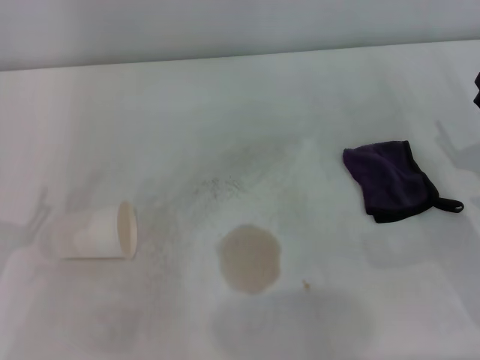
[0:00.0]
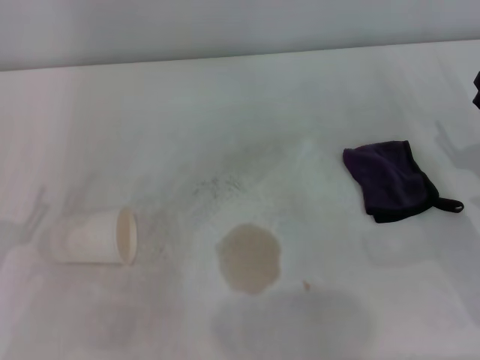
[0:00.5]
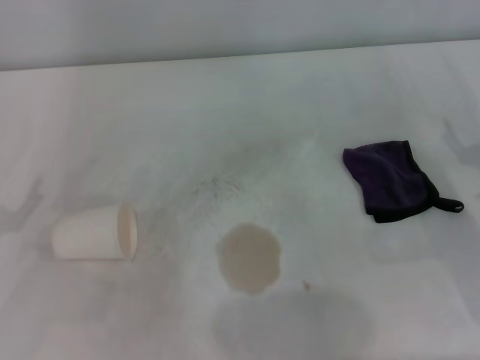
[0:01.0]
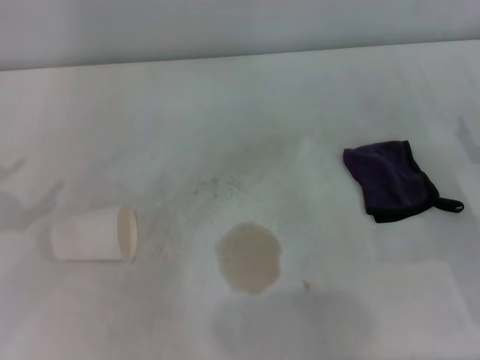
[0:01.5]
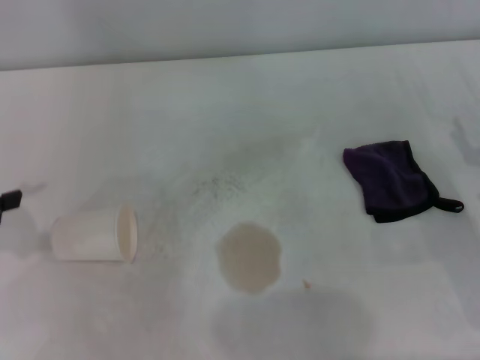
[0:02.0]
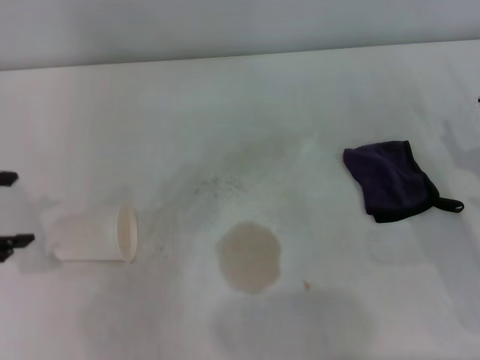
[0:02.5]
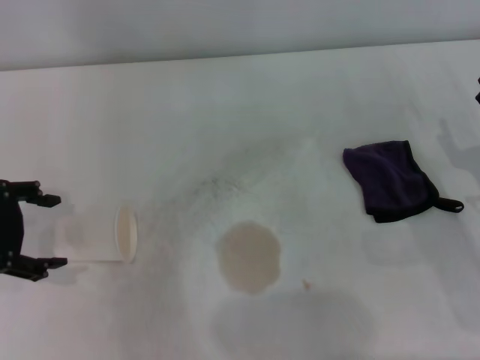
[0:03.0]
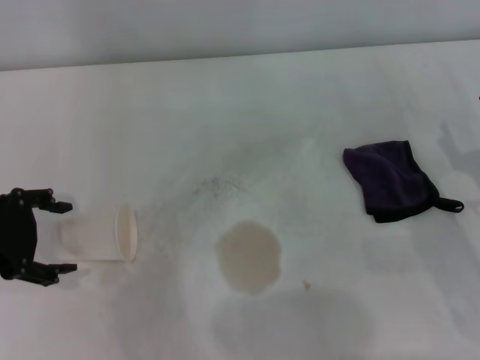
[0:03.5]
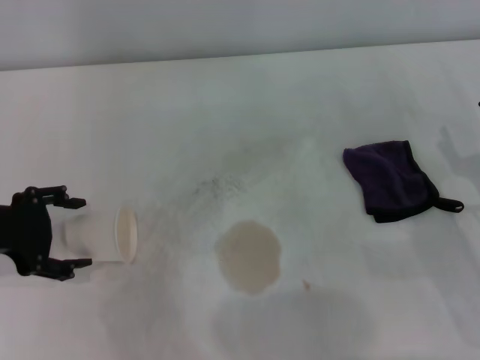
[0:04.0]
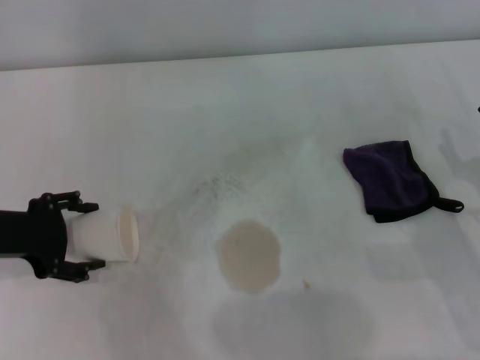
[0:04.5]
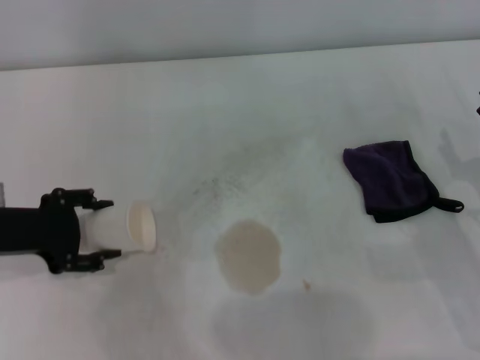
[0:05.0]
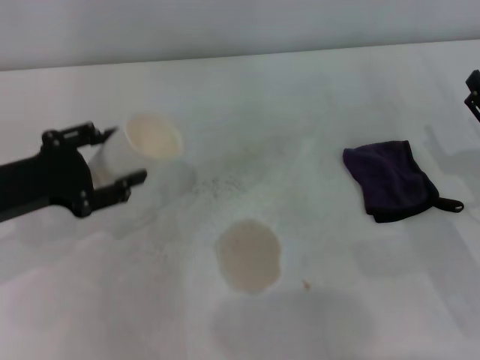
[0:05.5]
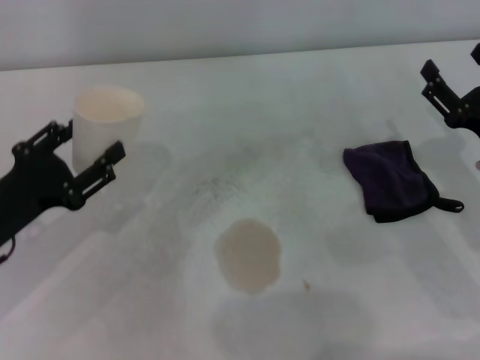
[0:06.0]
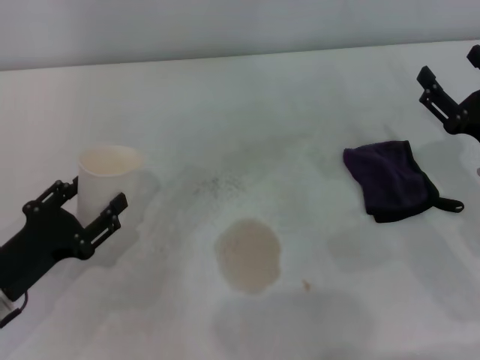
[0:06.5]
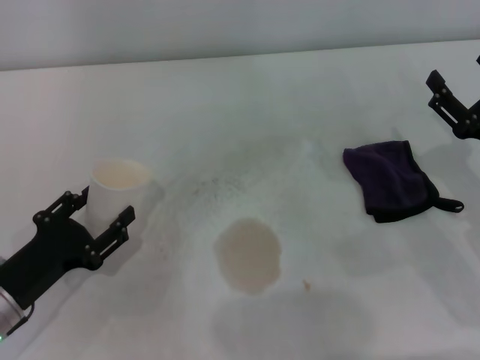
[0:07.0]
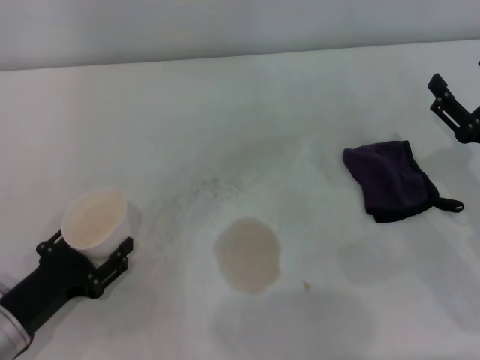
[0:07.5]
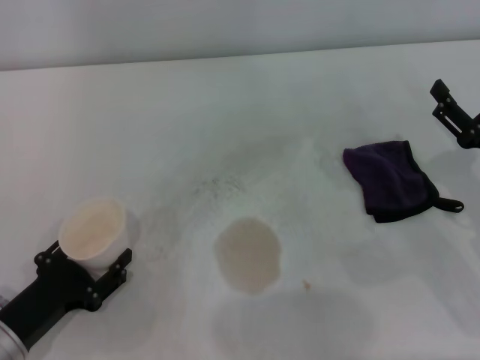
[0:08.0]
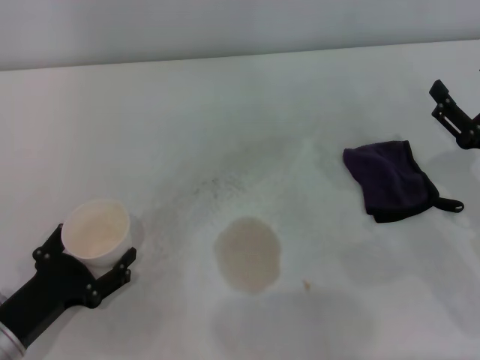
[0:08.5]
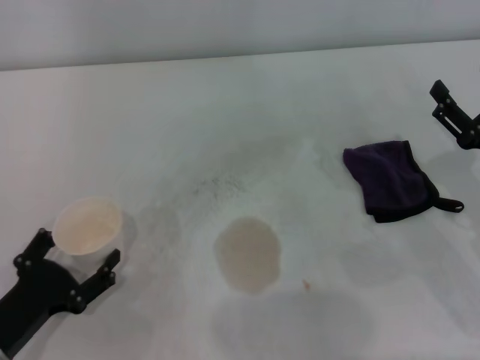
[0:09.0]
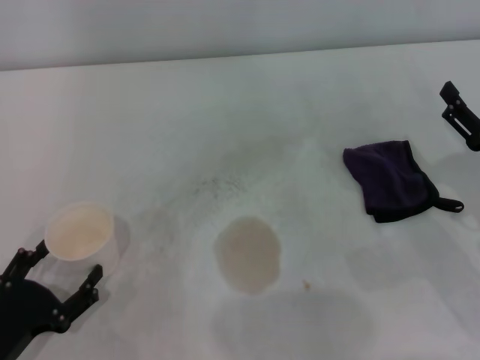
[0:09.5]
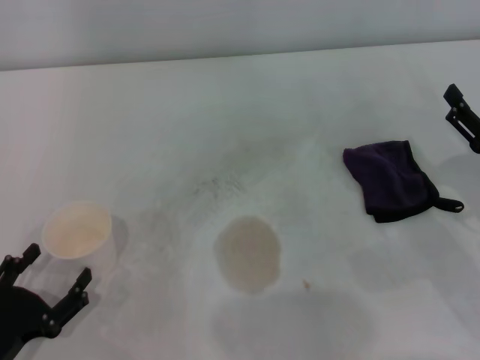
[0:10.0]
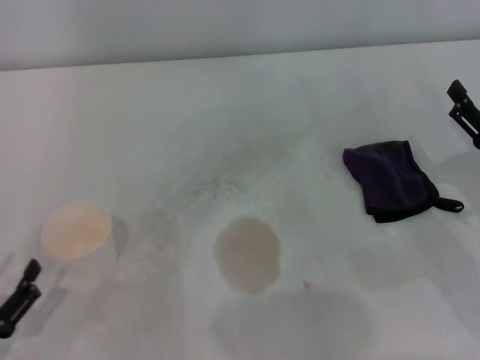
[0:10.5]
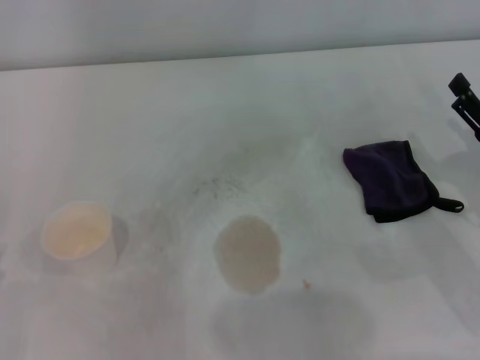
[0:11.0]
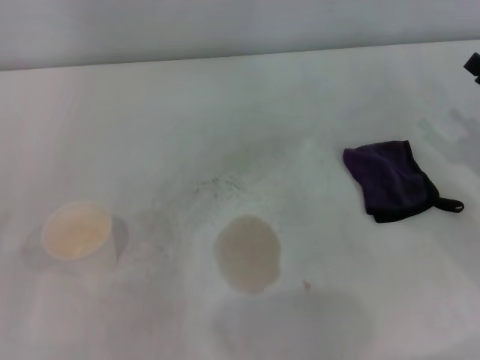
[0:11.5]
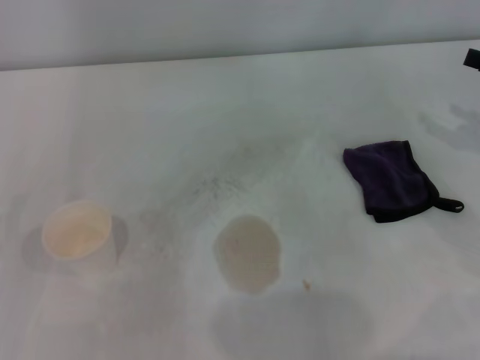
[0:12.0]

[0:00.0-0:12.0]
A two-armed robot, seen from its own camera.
Step, 0:00.0 to 0:04.0: Grasp the paper cup with the left gripper.
Step, 0:04.5 to 0:09.0: Stand the paper cup upright with the left gripper.
0:02.0 to 0:04.0: The left gripper moves to the right, roughly 10 cm.
0:04.0 to 0:06.0: The left gripper travels downward by roughly 5 cm, and closes its fingers.
0:06.0 to 0:08.0: The left gripper travels downward and backward by some 10 cm.
0:08.0 to 0:10.0: The left gripper ends up about 5 cm from where it was, and opens up.
0:10.0 to 0:12.0: The right gripper goes some 15 cm upward, to the right and forward. The left gripper moves to the left, roughly 5 cm.

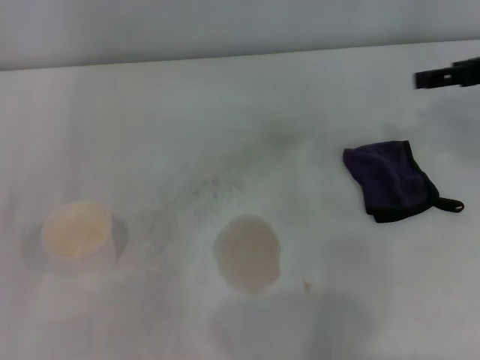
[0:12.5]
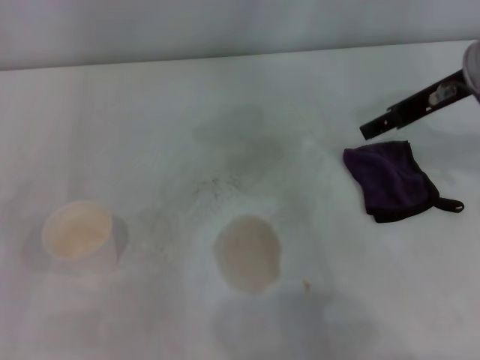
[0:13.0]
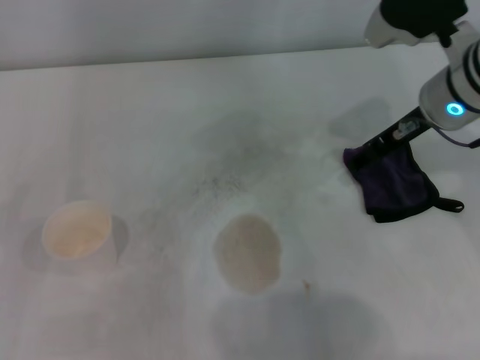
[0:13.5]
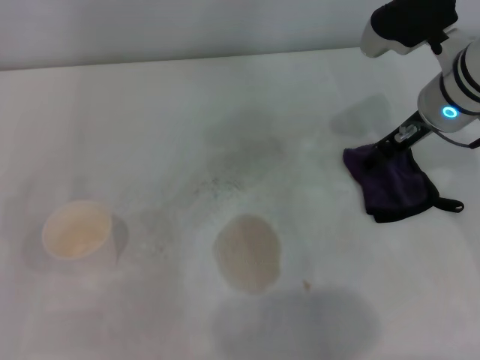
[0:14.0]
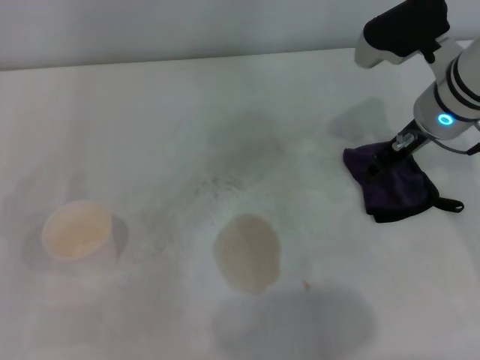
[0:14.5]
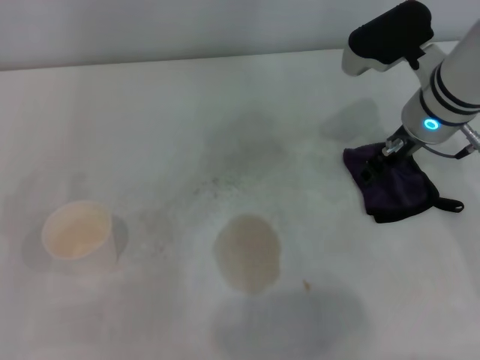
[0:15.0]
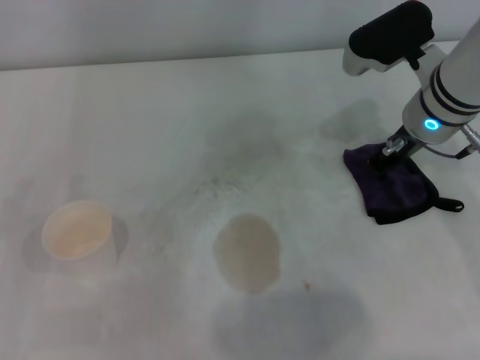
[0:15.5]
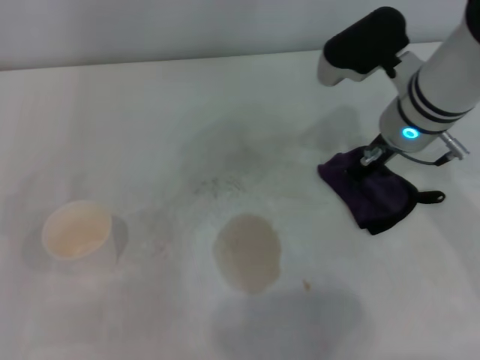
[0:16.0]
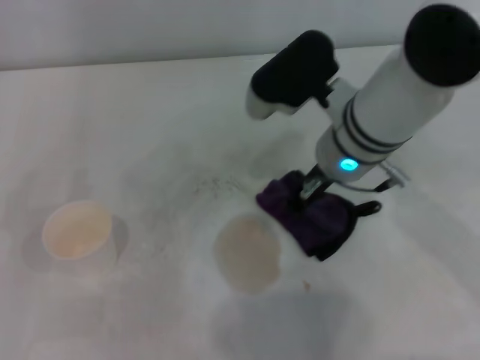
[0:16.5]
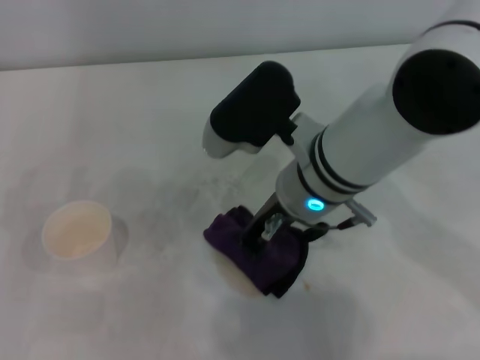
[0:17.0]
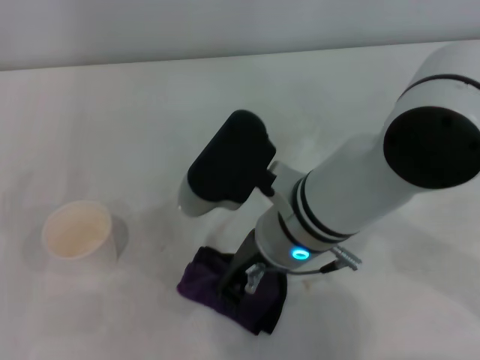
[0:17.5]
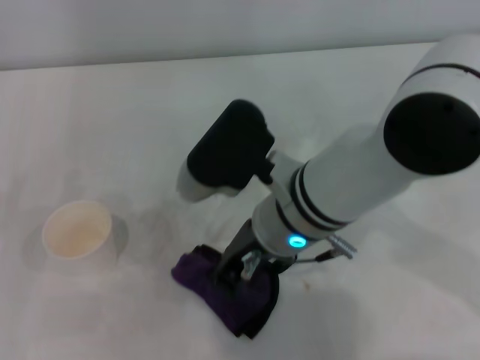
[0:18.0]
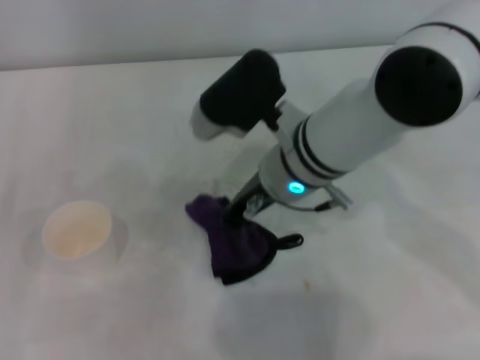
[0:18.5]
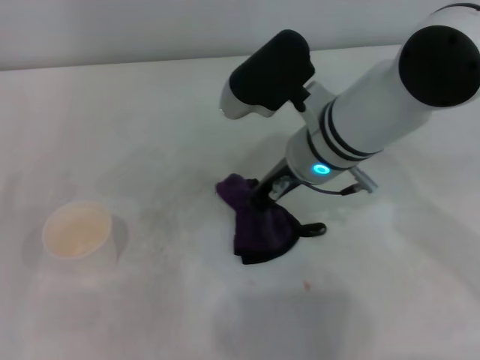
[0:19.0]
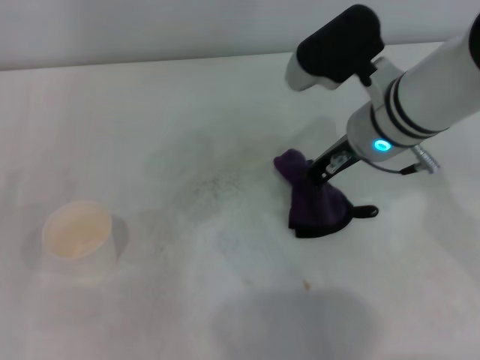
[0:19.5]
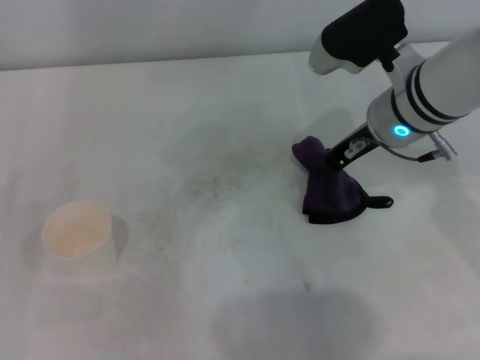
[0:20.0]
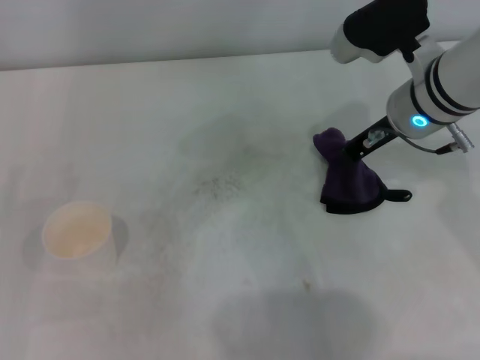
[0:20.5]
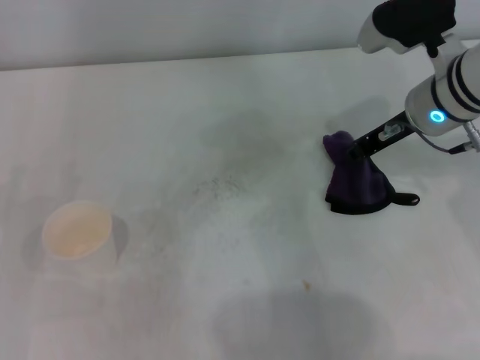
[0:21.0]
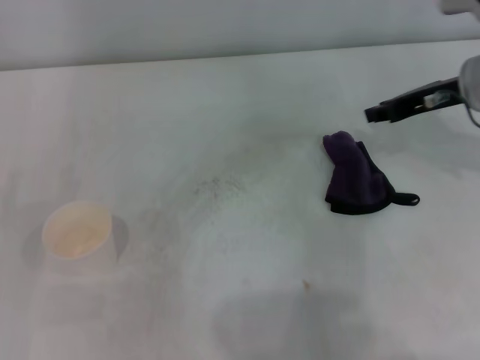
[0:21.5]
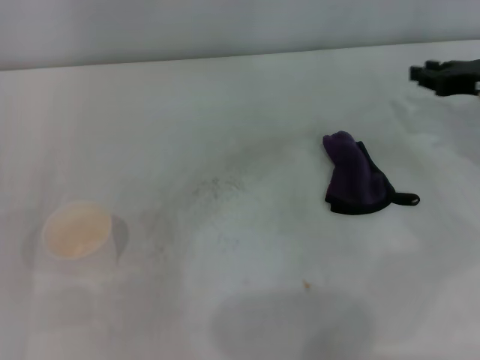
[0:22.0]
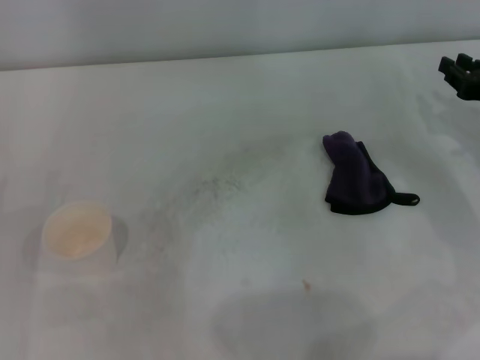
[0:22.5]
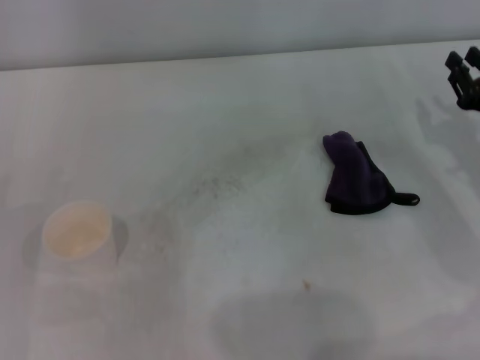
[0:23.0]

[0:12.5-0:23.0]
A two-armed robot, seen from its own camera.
Step, 0:12.5 to 0:15.0: Grasp the rag with the right gripper.
Step, 0:15.5 to 0:19.5: Wipe the stains off the table with the right gripper.
Step, 0:20.0 to 0:21.0: Place the rag on the table with the right gripper.
0:12.5 to 0:14.5: The right gripper goes roughly 15 cm to the left and downward.
0:14.5 to 0:16.5: The right gripper goes some 10 cm to the left, and closes its fingers.
0:19.0 to 0:21.0: The right gripper heads to the right, covering about 10 cm.
0:21.0 to 0:23.0: The right gripper heads to the right, downward and backward, covering approximately 15 cm.
